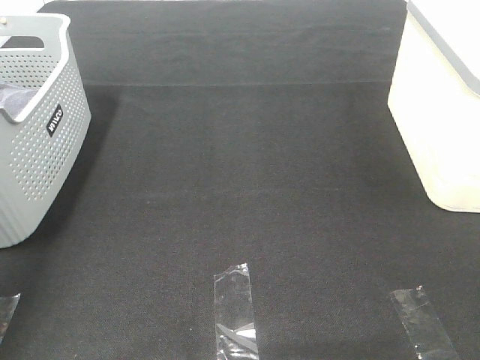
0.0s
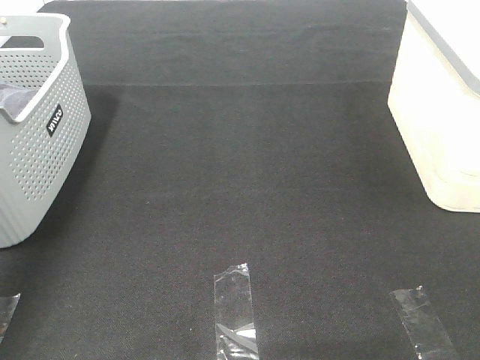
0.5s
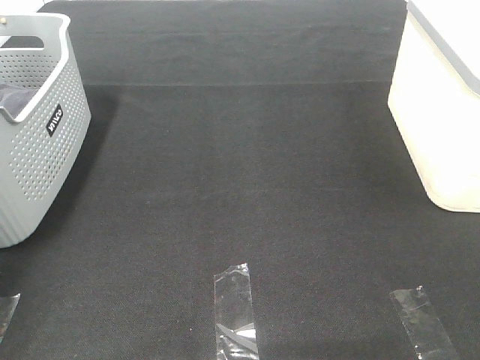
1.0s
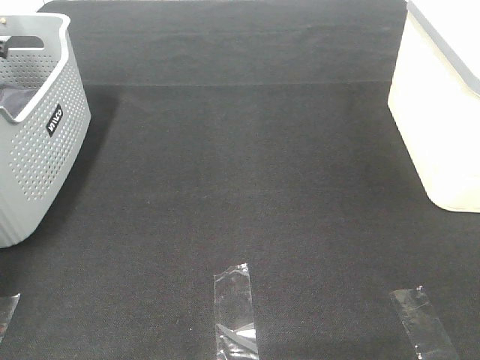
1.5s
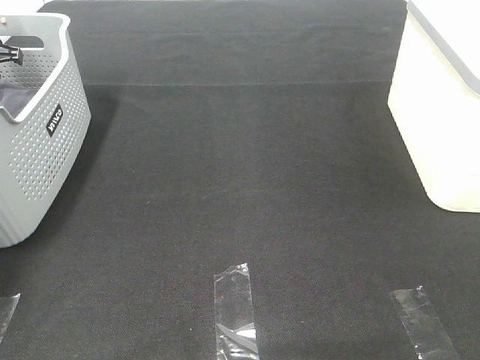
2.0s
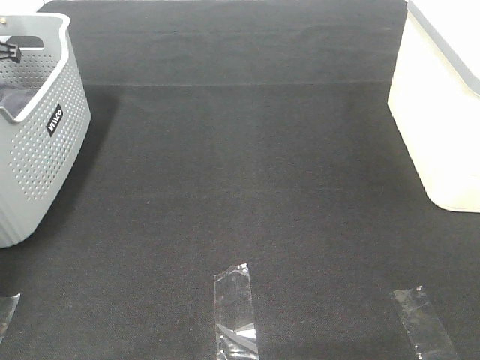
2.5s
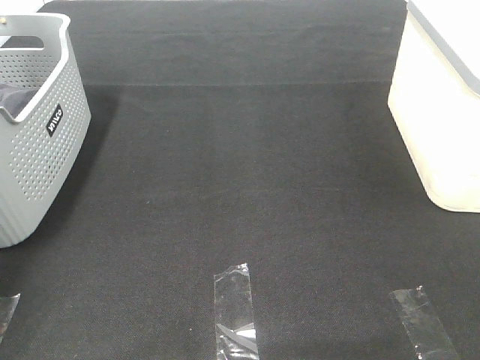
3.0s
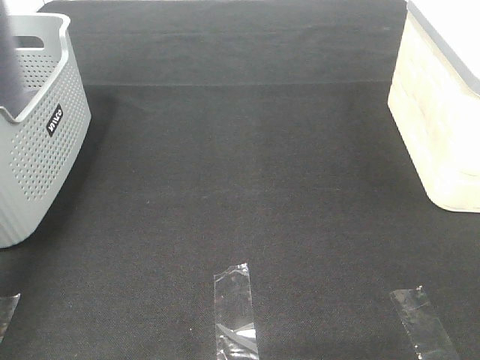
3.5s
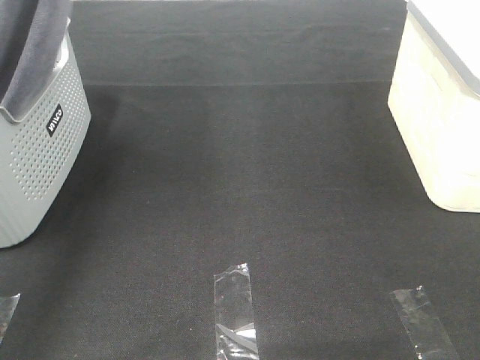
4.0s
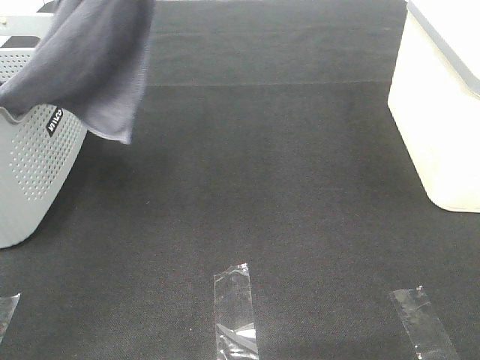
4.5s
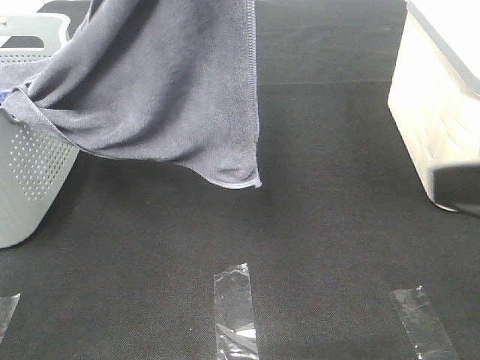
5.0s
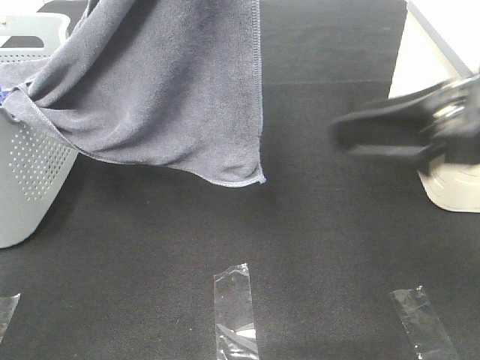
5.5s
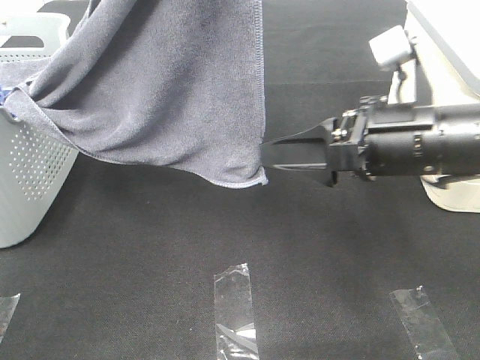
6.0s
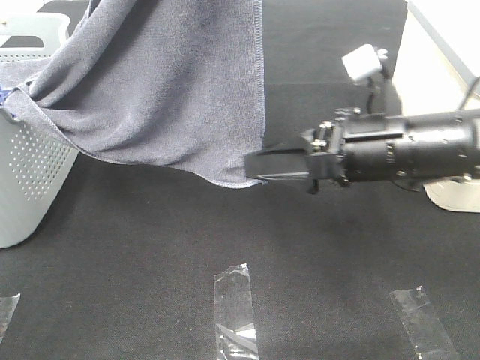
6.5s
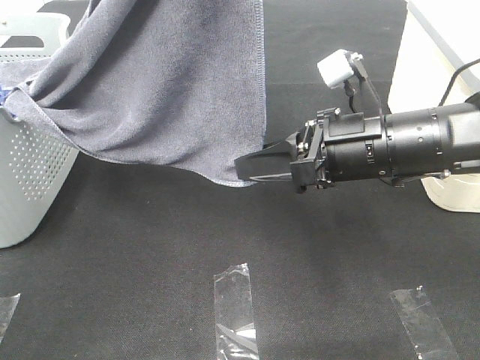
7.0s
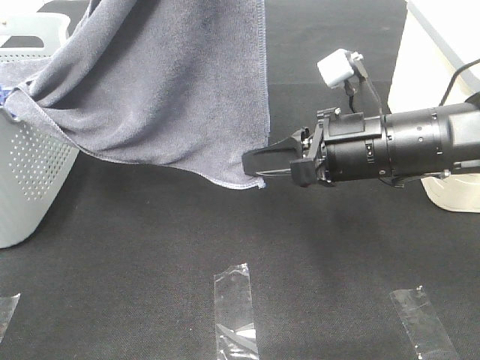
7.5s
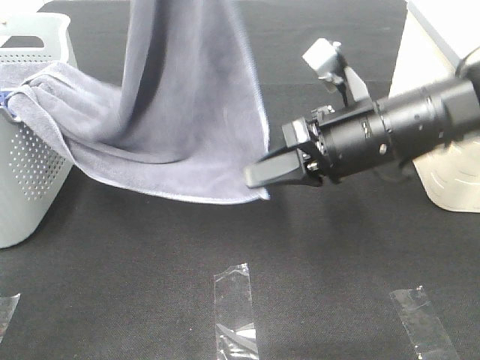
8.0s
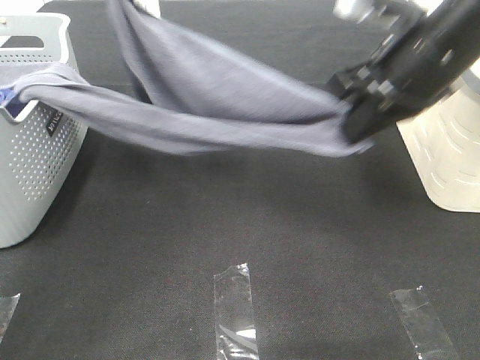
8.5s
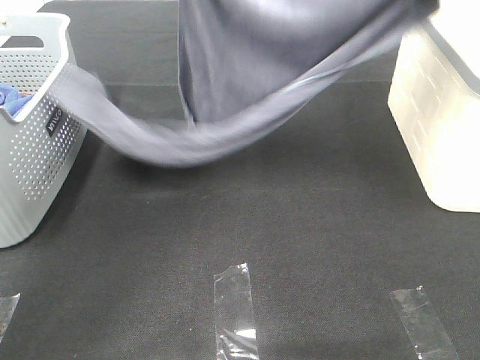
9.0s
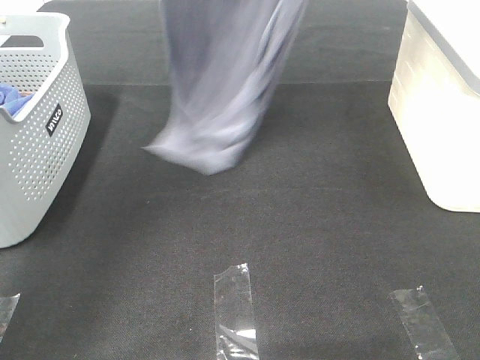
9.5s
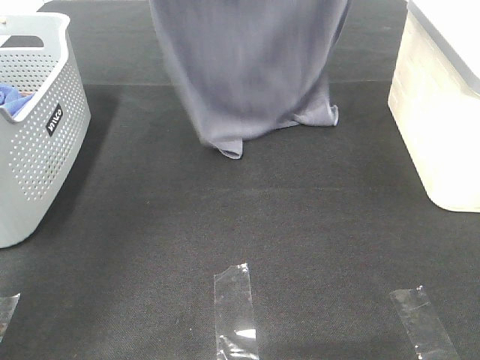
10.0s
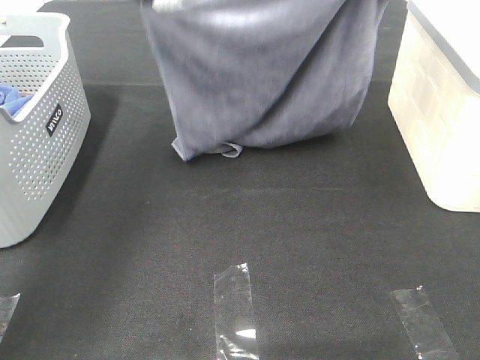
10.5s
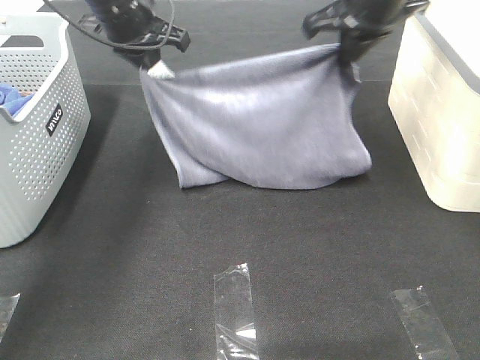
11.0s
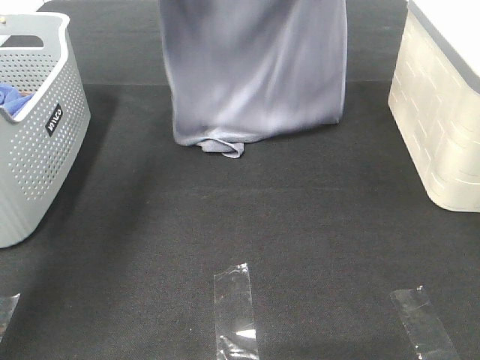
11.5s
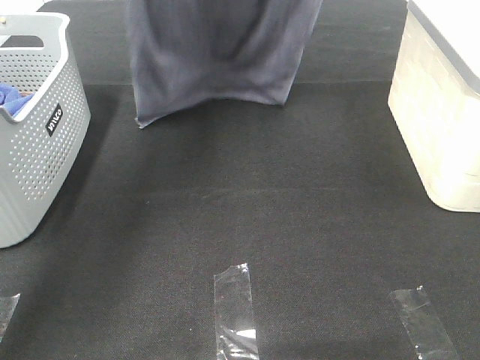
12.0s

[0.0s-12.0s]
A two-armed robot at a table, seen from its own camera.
Task of the whole recording: Remove the towel and place it.
Step, 3.5s to 7.0s: Right hand: grab a corner of the grey towel and straighten it.
Step, 7.5s to 11.5s: Left hand: spread the grey towel flat on the table.
Step, 7.5s to 11.5s: Right hand: spread the grey towel flat on the table.
0.0s to 2.0s: The left gripper goes approximately 40 cm forward and downward, and closes.
2.0s to 4.0s: The left gripper shifts some 35 cm upward, to the right and backward, and closes its fingers.
4.0s to 6.0s: The left gripper goes some 10 cm to the right and backward. The right gripper travels forward and to the left by some 25 cm.
6.0s to 8.0s: The right gripper closes its fingers, while the left gripper shifts by some 5 cm.
8.0s to 10.0s: The right gripper is displaced upward and forward by approximately 30 cm. The left gripper travels forward by some 10 cm.
10.0s to 12.0s: The left gripper moves some 20 cm downward and comes back. The right gripper goes downward and returns, approximately 20 cm each way.

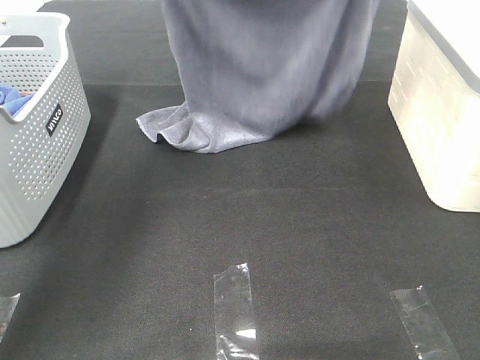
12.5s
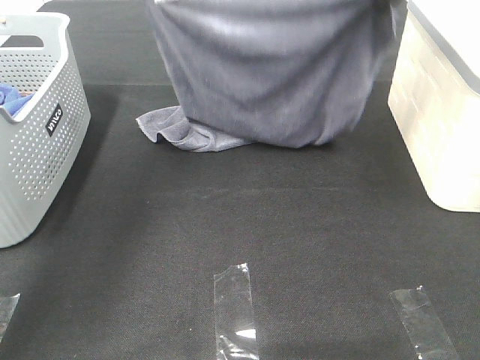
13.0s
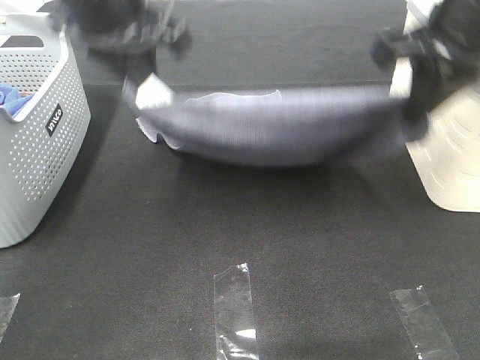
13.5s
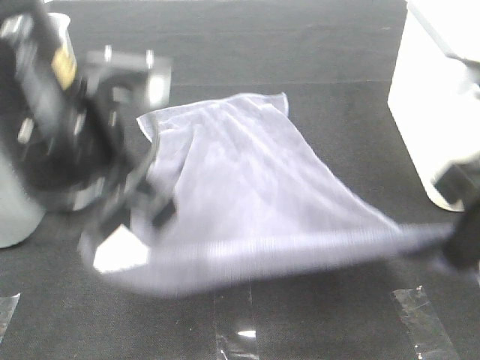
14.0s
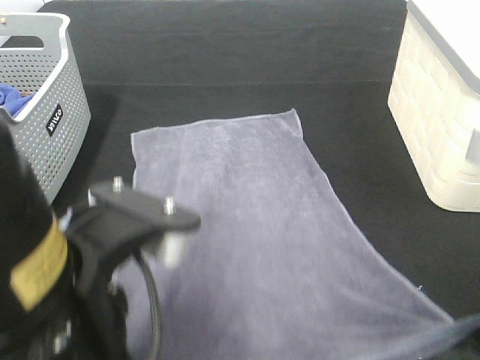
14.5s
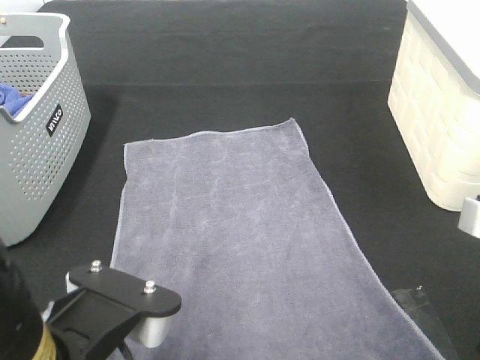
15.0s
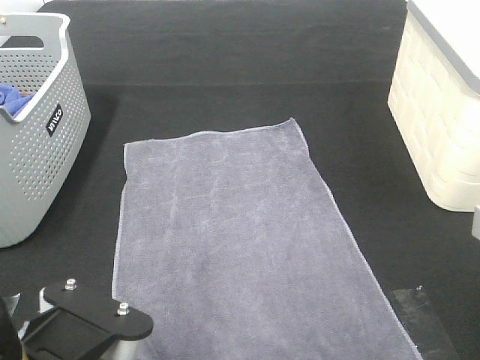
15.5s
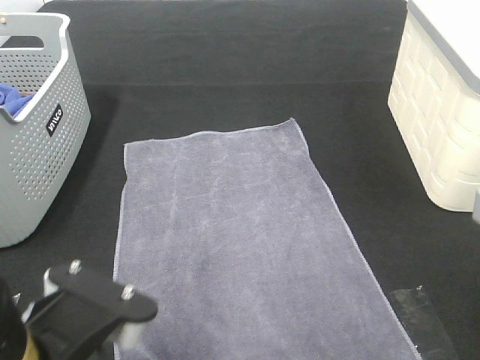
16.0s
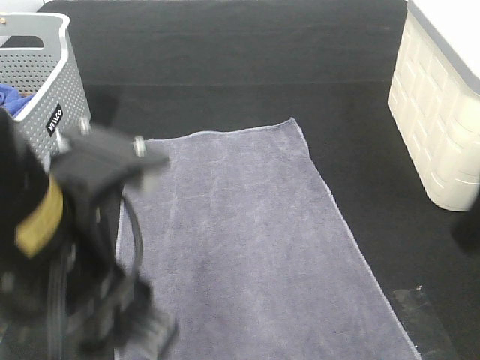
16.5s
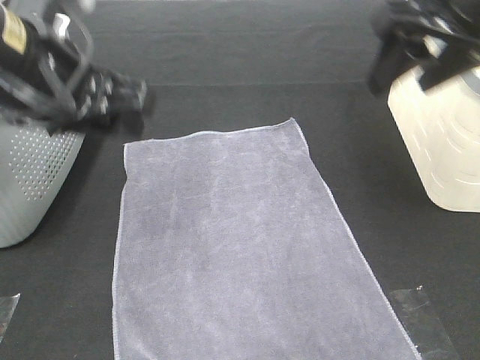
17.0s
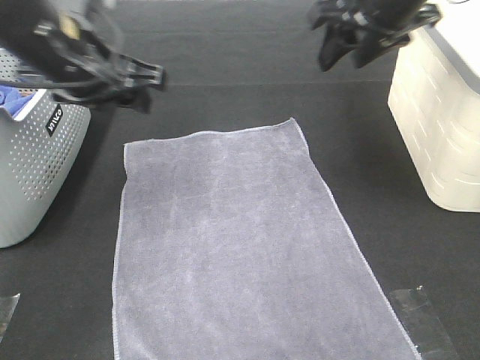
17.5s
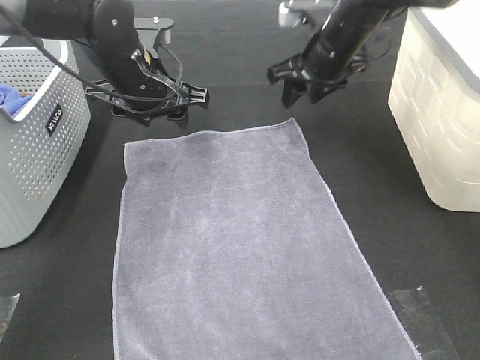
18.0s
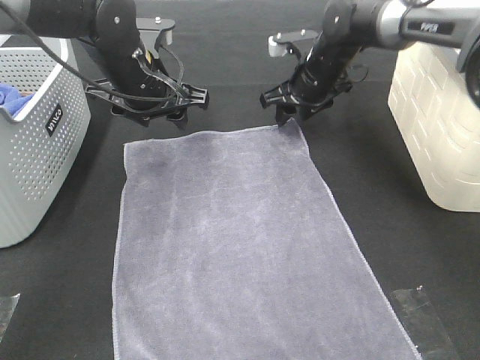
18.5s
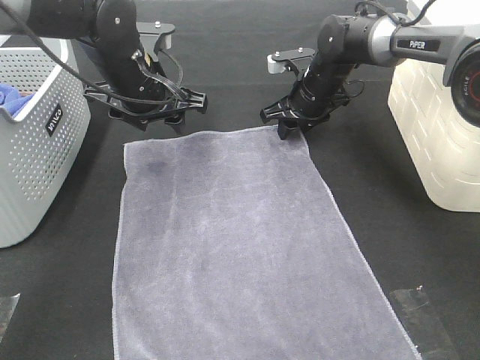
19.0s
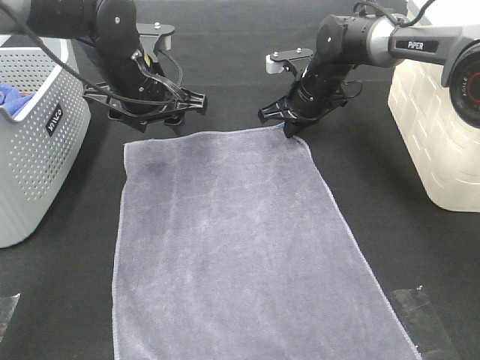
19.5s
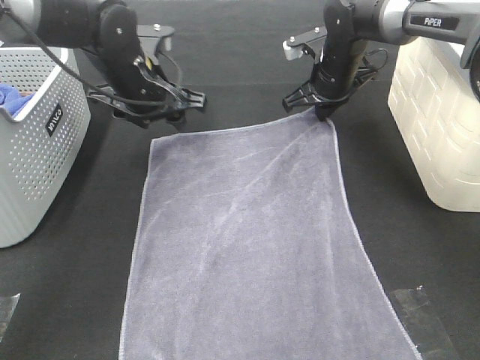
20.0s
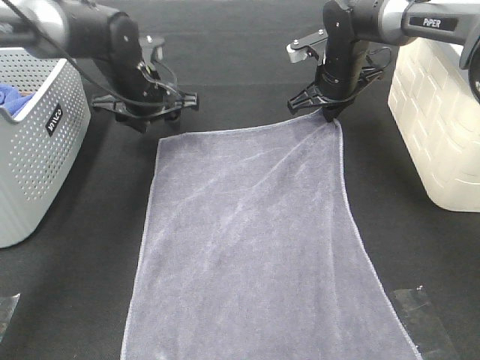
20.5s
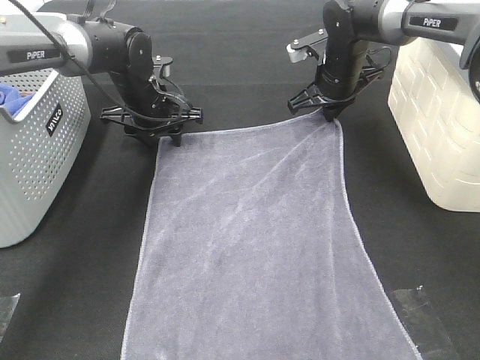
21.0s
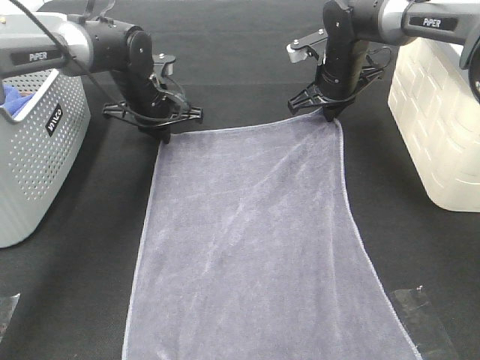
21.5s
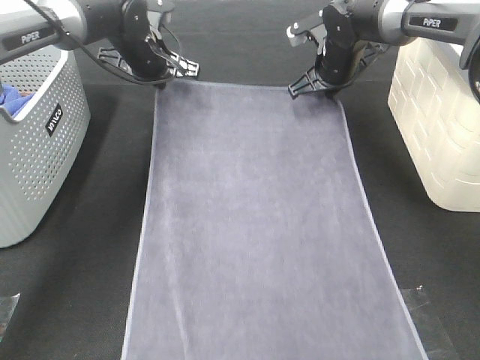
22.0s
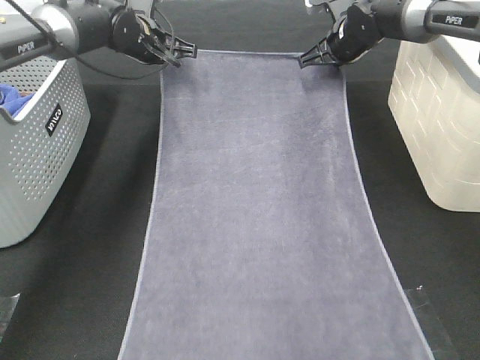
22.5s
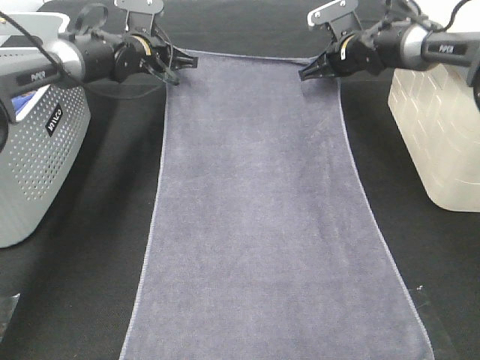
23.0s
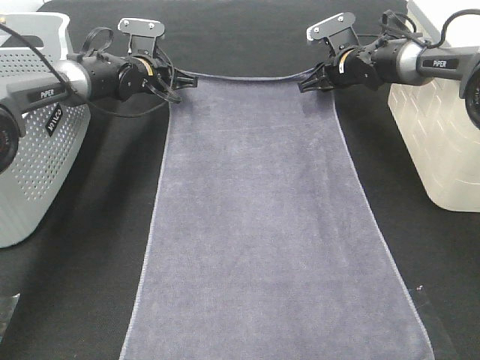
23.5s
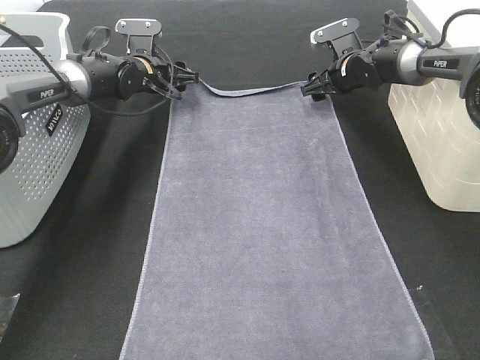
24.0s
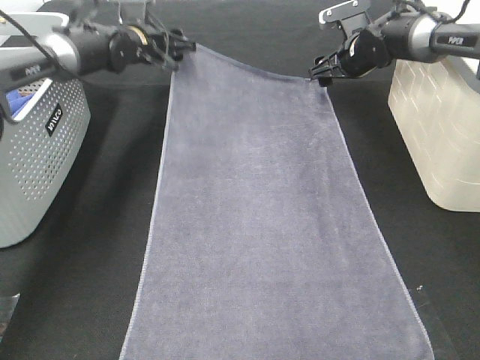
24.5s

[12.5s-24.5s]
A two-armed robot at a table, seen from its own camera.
Task of the whole recording: Remove the towel and place it.
Step, 12.5s to 19.0s: Left hand:adjust the gray towel.
Step, 12.5s to 19.0s: Right hand:adjust the gray towel.
12.5s to 14.5s: The right gripper moves backward and downward, approximately 35 cm. The left gripper moves backward, approximately 40 cm.
14.5s to 16.5s: The right gripper changes place by some 5 cm, and opens up. The left gripper opens up.
16.5s to 18.5s: The right gripper heads forward and downward, covering approximately 40 cm. The left gripper travels forward by some 30 cm.
18.5s to 20.5s: The right gripper closes up. Meanwhile the left gripper heads forward and downward, covering approximately 10 cm.
20.5s to 22.5s: The left gripper shifts some 10 cm forward, and closes up. Meanwhile the right gripper shifts by about 5 cm.
22.5s to 24.5s: The right gripper opens its fingers. Meanwhile the left gripper opens.

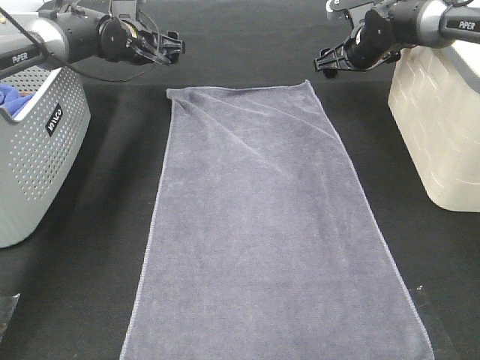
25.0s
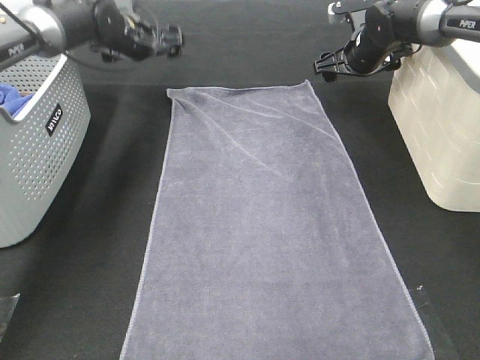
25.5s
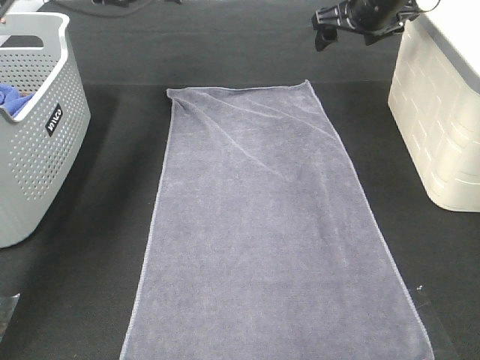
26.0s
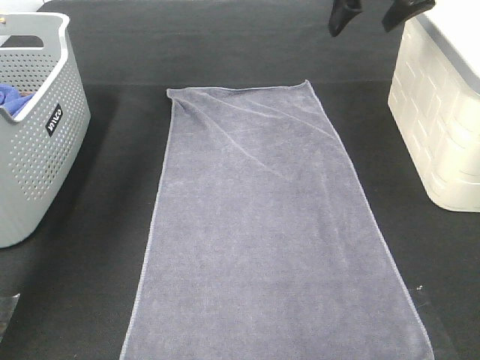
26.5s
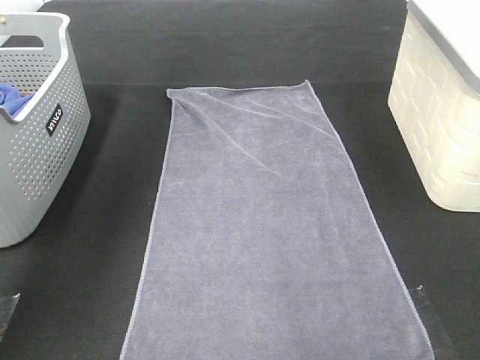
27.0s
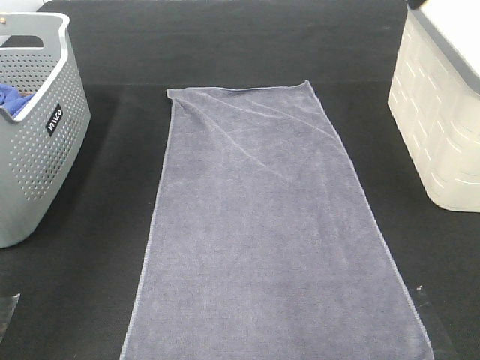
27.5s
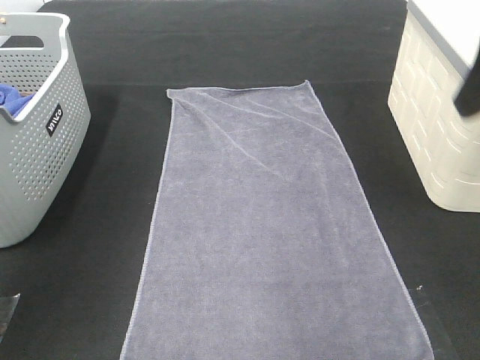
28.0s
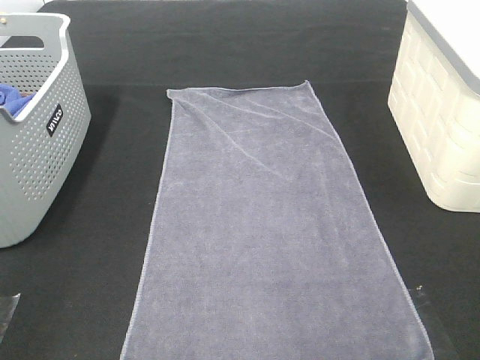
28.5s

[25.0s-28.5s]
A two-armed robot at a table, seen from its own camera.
Task of the whole recording: Remove the towel and place it.
25.0s to 27.0s: Both grippers move upward and backward, about 30 cm.
27.0s to 28.5s: The right gripper moves backward, about 30 cm. The left gripper travels backward and downward by approximately 40 cm.
